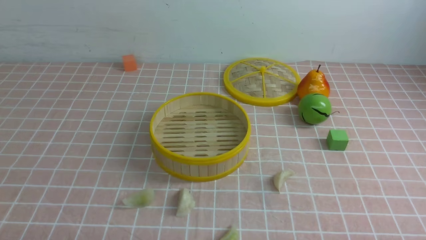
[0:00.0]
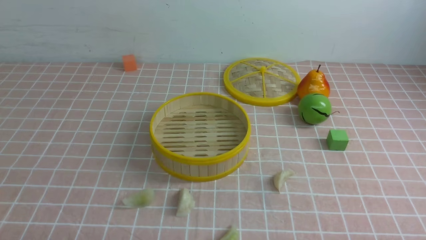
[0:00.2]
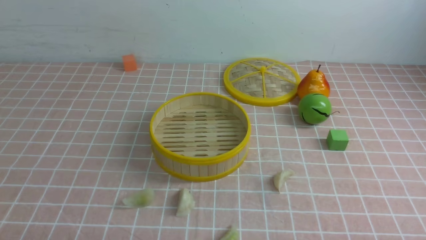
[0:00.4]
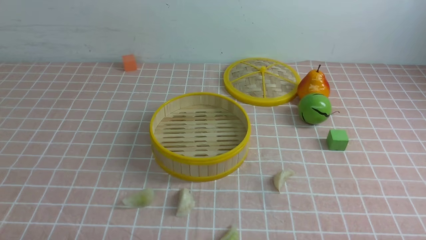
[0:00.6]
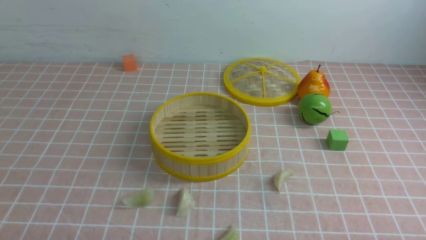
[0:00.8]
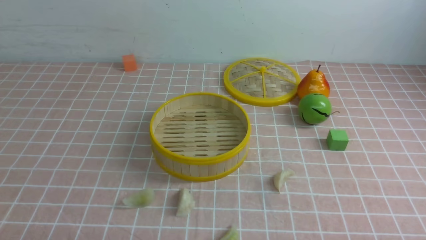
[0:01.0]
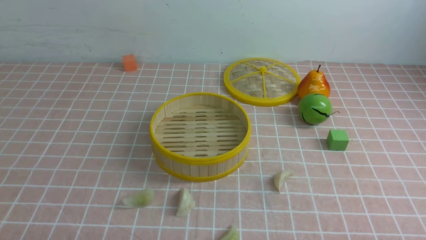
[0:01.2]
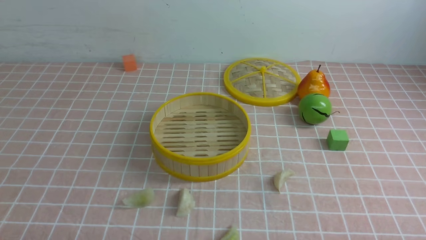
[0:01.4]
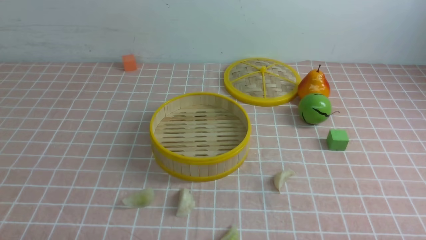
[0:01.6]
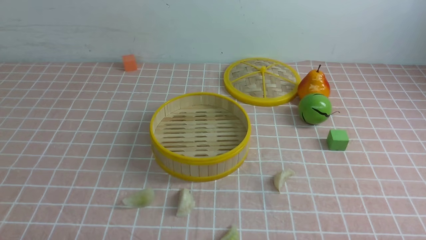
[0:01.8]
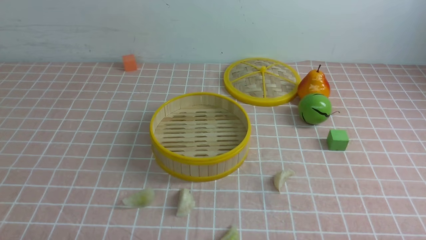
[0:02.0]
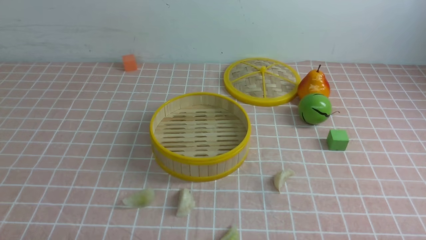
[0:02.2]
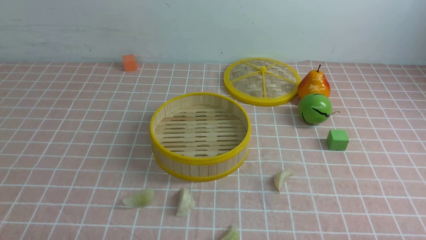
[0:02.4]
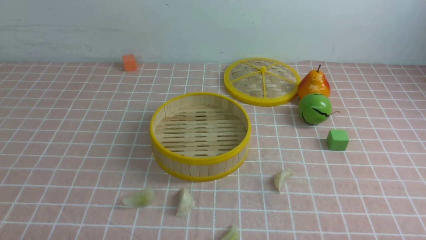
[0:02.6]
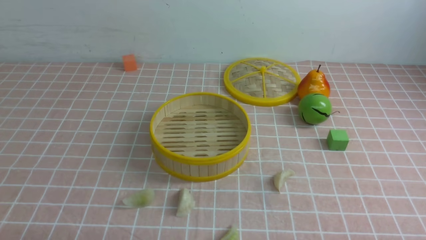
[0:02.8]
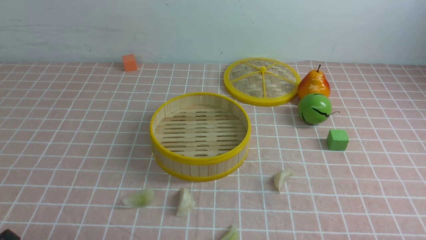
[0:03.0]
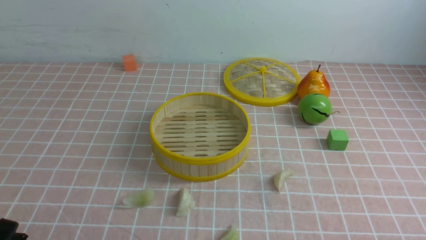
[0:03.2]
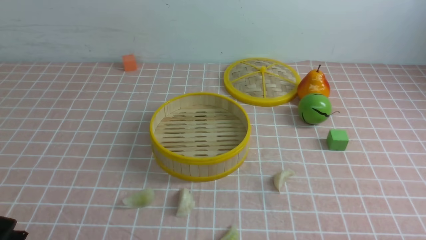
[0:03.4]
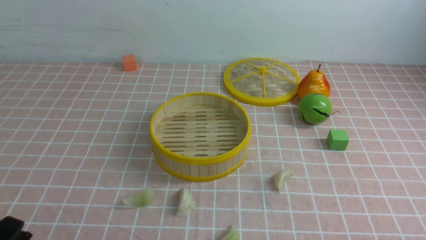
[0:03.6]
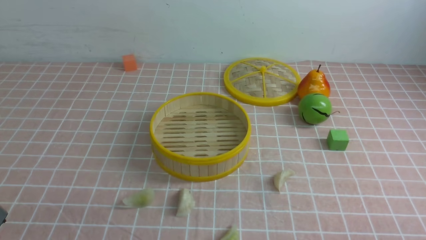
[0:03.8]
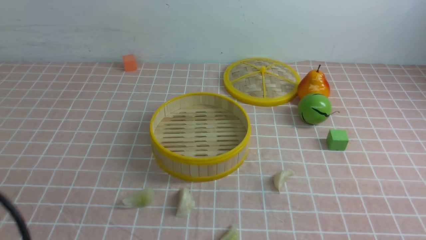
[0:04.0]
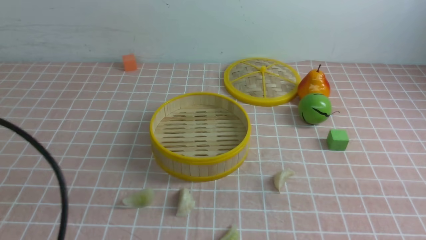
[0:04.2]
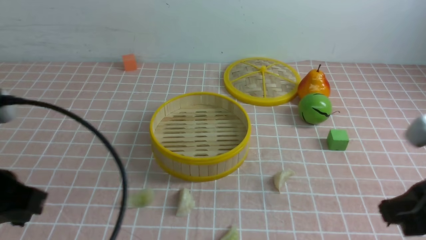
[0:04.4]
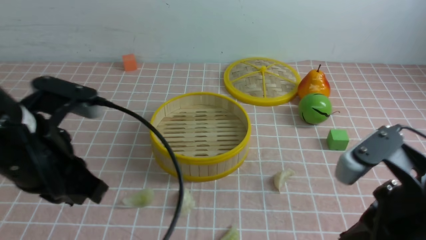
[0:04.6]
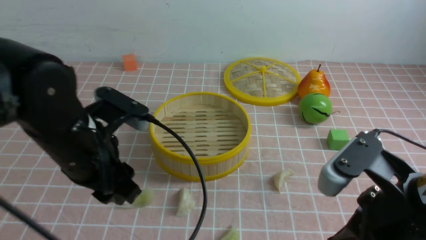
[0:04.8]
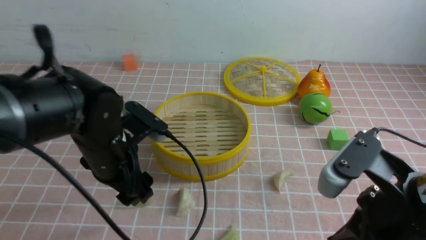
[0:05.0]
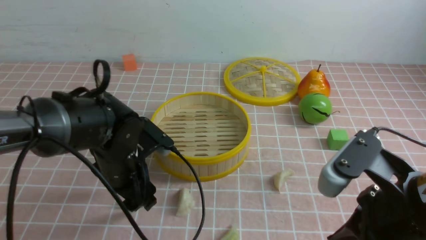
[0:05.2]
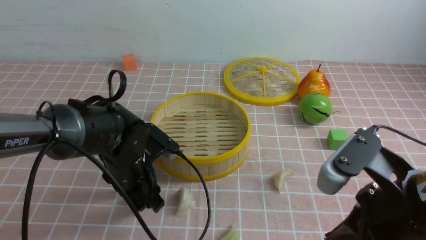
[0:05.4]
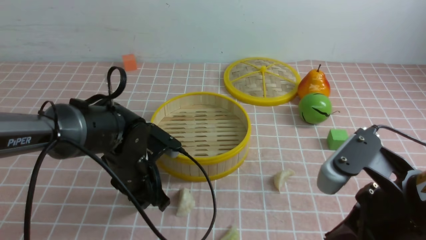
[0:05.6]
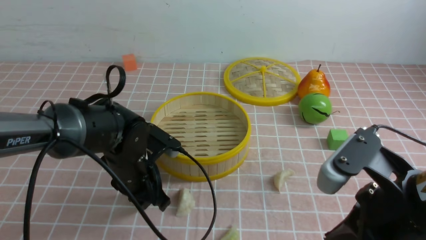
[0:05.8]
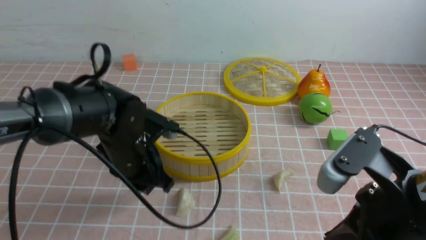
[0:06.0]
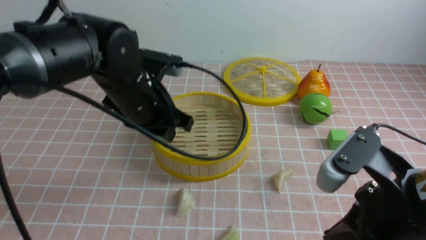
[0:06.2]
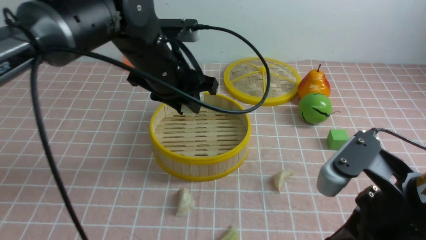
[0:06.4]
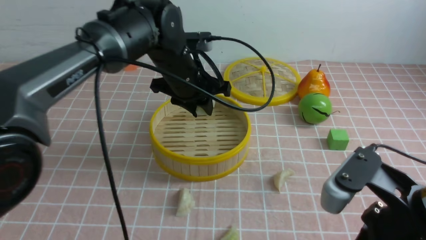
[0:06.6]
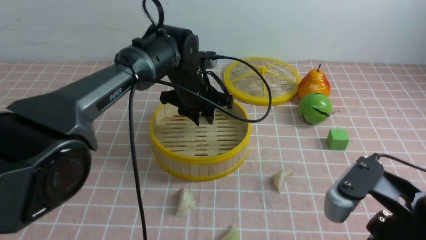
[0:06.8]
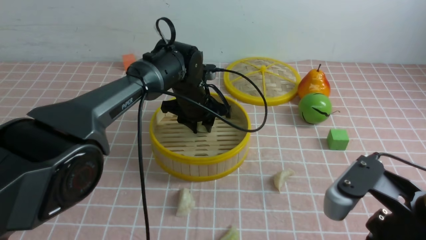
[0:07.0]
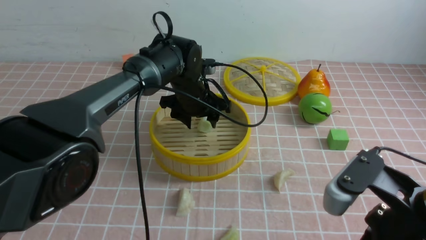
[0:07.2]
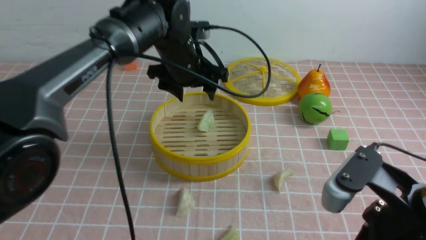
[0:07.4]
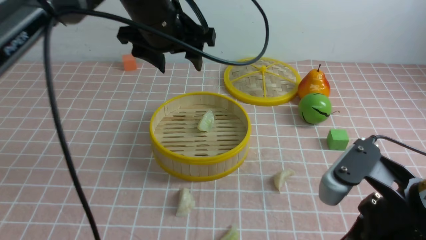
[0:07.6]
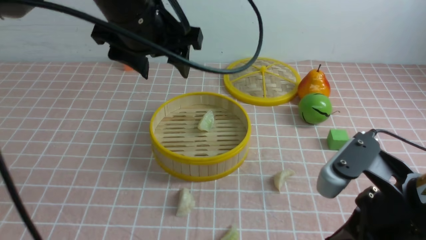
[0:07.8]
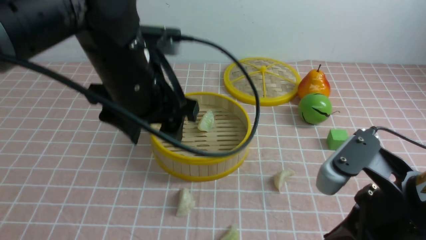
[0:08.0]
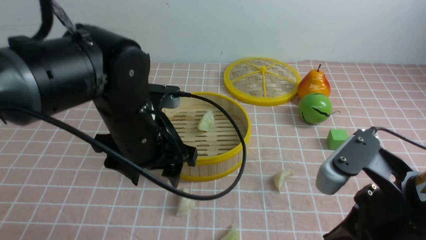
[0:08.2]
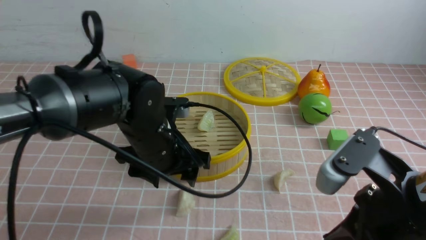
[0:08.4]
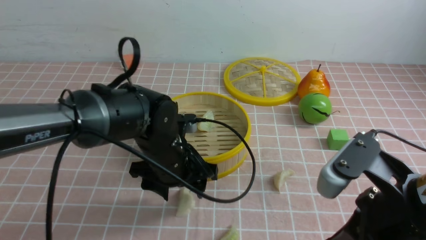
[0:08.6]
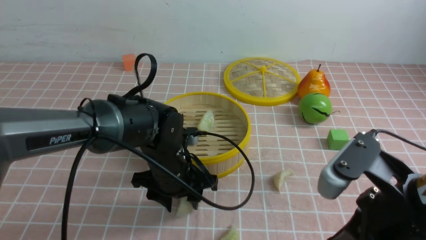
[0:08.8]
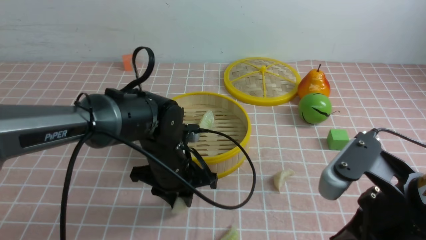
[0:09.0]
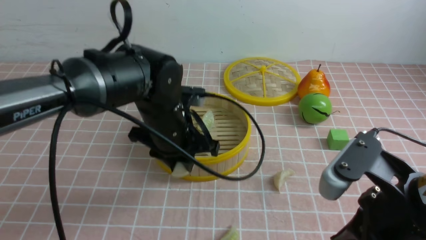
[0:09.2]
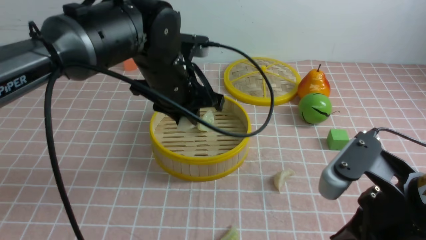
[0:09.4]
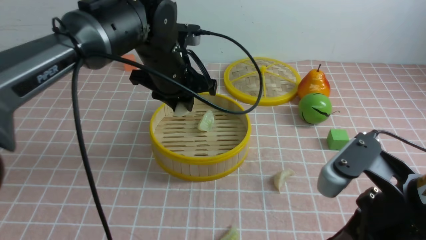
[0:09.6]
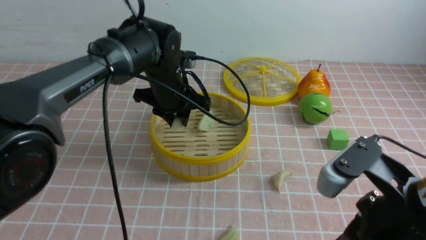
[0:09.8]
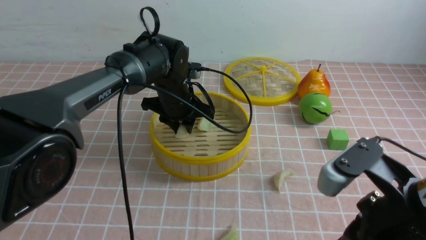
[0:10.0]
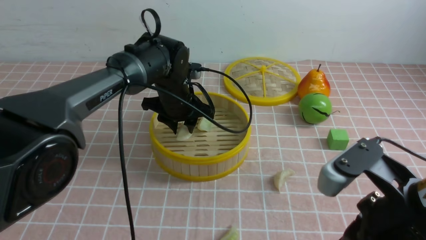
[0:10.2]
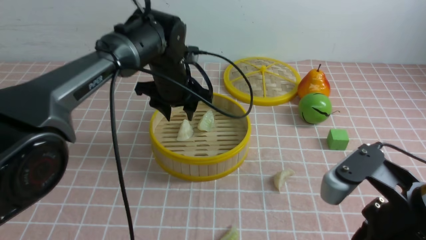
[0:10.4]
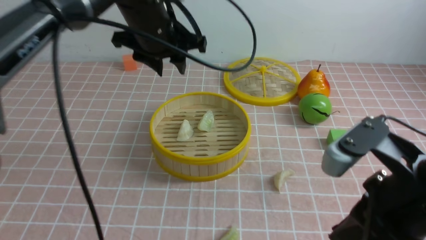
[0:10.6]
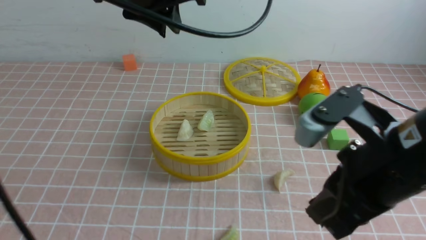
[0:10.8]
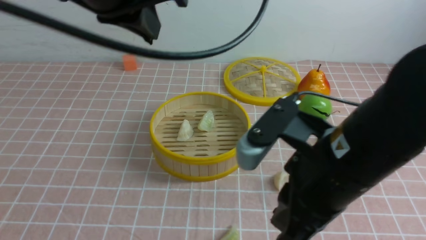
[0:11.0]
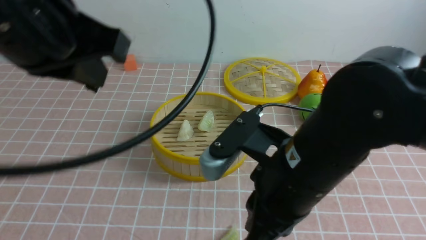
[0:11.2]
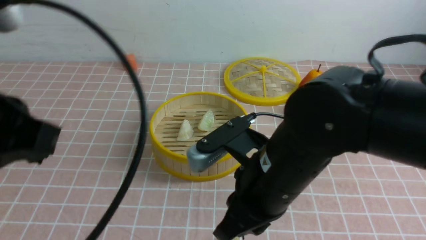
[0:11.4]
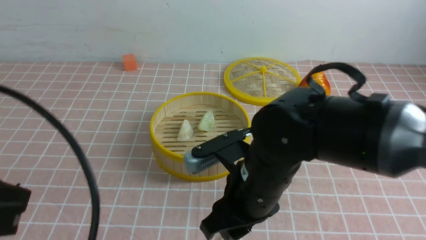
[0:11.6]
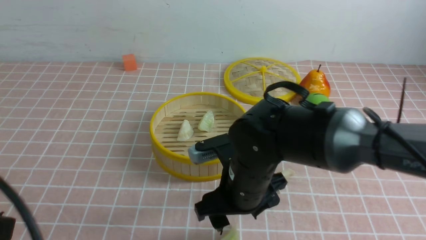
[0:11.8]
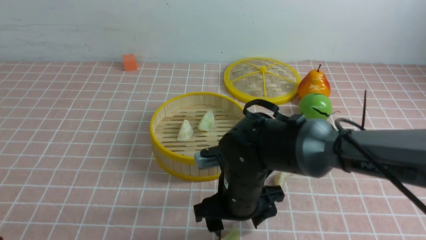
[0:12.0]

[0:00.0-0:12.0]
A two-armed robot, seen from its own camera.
Task of the whole recording: put the dumplings into the steamer on the table with the pink tablecloth.
Step, 0:00.0 to 0:05.8: use the left arm to grab a dumpling.
Step, 0:06.0 to 0:07.4: use the left arm to put the dumpling into the steamer.
Step, 0:07.6 to 0:08.8: use the left arm to grab a dumpling.
Step, 0:09.0 to 0:10.4: use the left arm to put the dumpling into the steamer.
0:03.0 to 0:04.4: Both grippers travel together upward and forward, about 15 cm. The right gripper closes its fingers; the left gripper closes up.
0:04.4 to 0:06.0: The right gripper travels to the left by approximately 10 cm; the left gripper travels forward, downward and to the right by approximately 25 cm, and opens.
0:06.0 to 0:07.6: The left gripper swings up and down, some 15 cm each way, with 2 reversals, and opens up.
0:07.6 to 0:09.0: The left gripper heads downward and backward, covering some 20 cm, and closes.
0:09.0 to 0:10.4: The left gripper heads forward and upward, covering about 15 cm.
0:10.4 to 0:12.0: The left gripper is displaced backward and to the left by some 40 cm, and closes up. Meanwhile the right gripper heads to the left, forward and downward, covering about 20 cm, and opens.

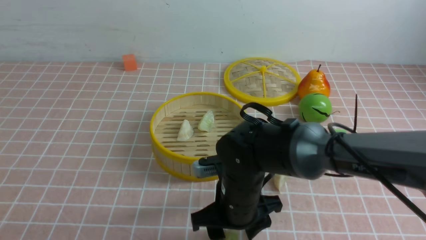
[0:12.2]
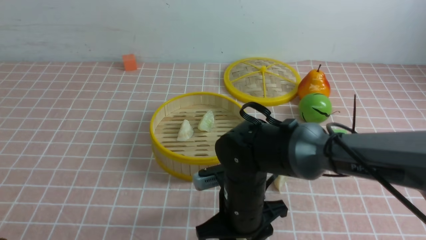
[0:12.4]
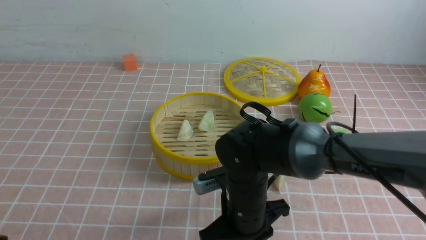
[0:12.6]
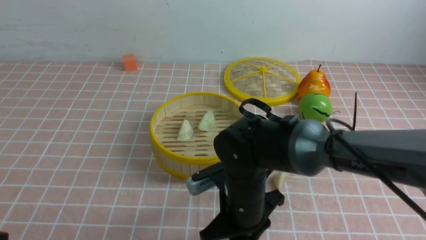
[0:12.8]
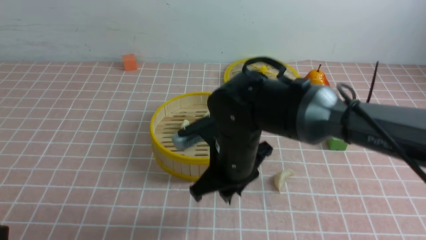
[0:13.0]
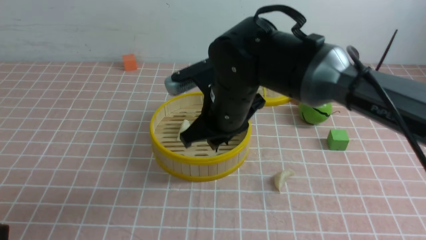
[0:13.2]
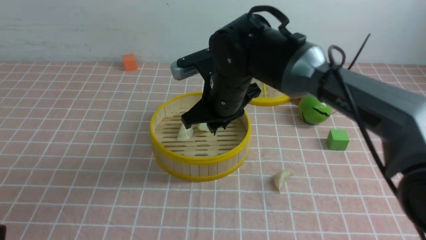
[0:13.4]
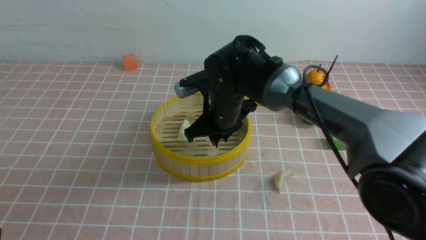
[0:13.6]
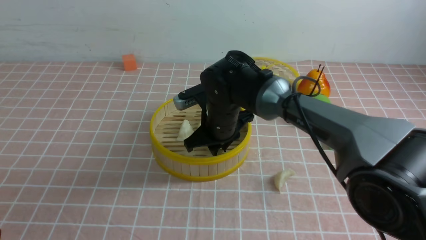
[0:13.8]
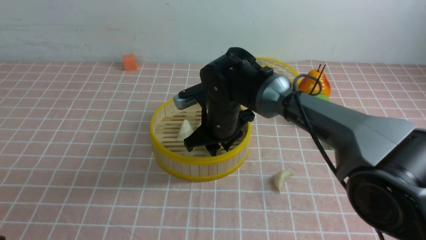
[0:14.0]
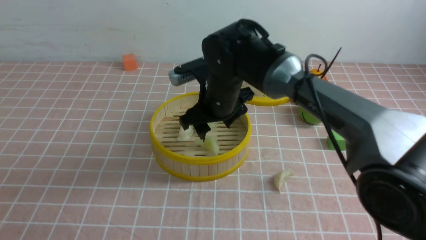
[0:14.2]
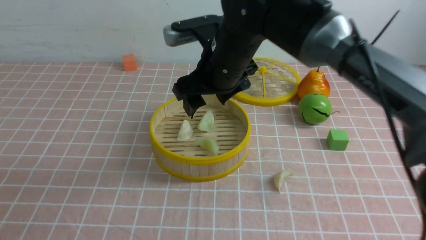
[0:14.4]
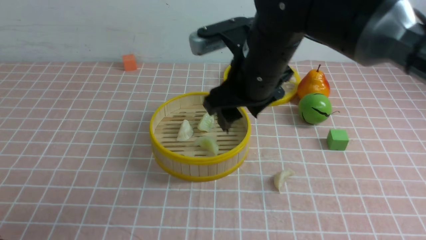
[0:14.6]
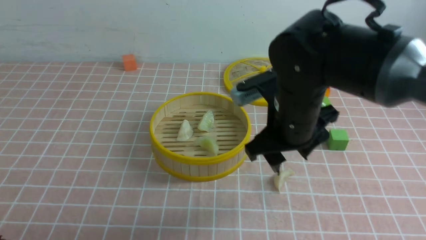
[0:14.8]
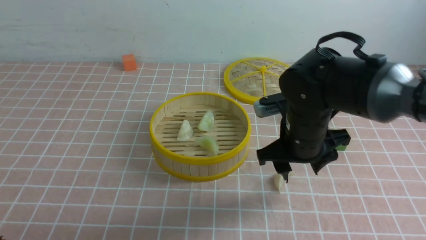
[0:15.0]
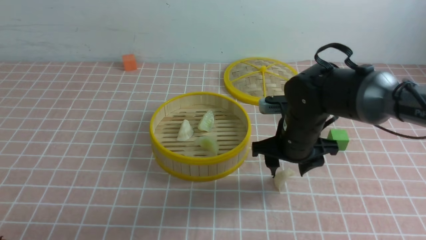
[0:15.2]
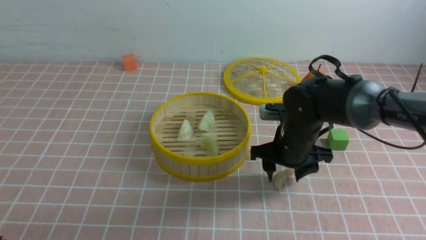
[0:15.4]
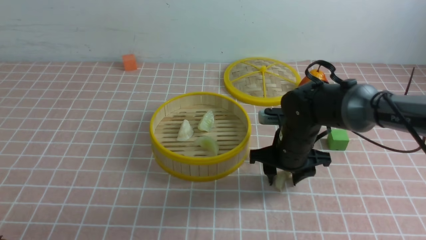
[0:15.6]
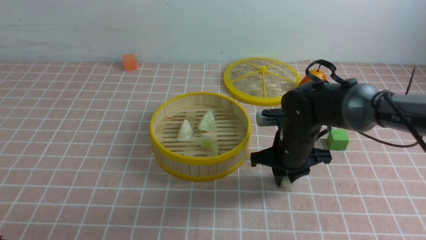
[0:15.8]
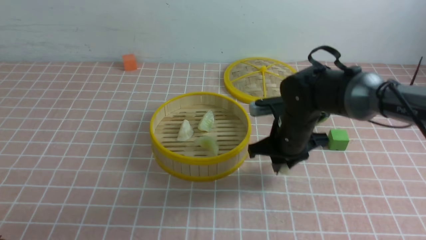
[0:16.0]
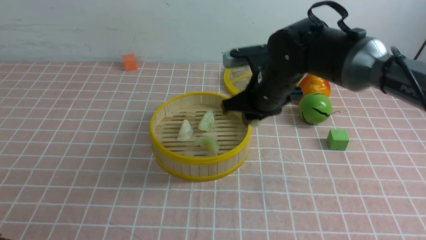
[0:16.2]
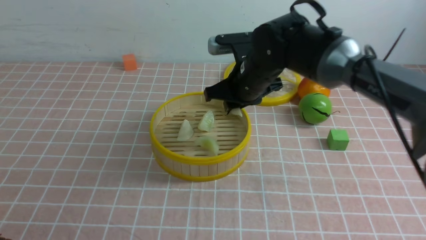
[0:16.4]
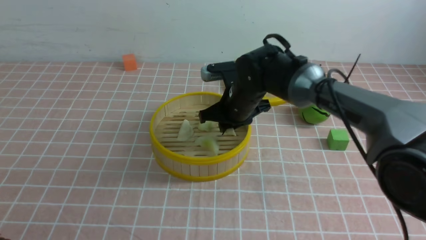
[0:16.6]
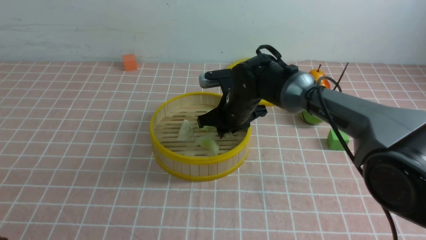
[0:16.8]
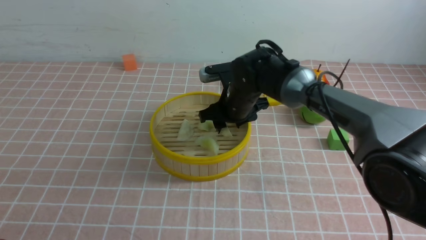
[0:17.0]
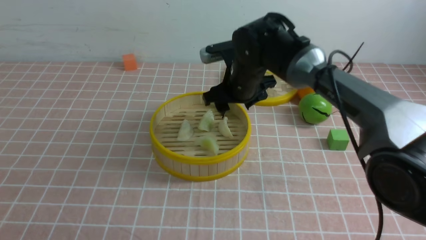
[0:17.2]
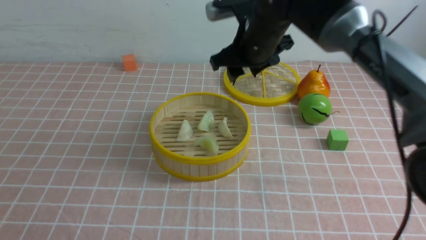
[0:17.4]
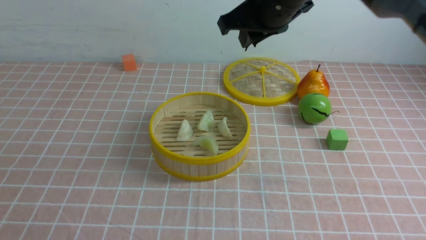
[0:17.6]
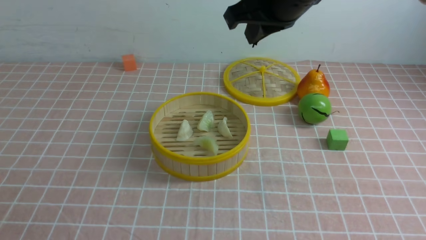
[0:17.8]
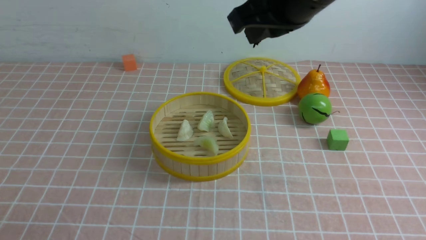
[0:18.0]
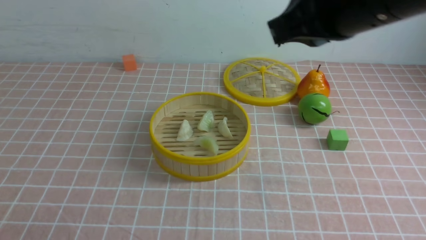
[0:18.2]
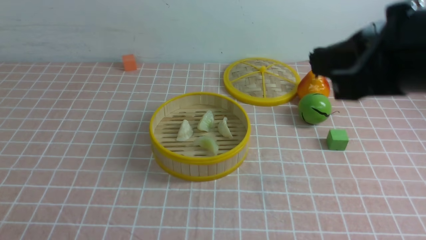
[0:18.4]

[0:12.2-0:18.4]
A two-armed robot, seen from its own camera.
Task of the whole recording: put the dumplings into the steamer on the table with the pink tablecloth.
Step, 0:13.0 to 0:14.2: use the right arm to put the dumpling into the steamer.
Step, 0:14.4 to 0:15.8: use the right arm to grab a dumpling.
Step, 0:16.2 to 0:17.0: use the right arm to put the dumpling into the steamer.
0:12.2 to 0:13.8: The right gripper moves forward, roughly 15 cm, and closes.
0:13.8 to 0:15.4: The right gripper is displaced to the right by approximately 10 cm, reaches roughly 10 cm upward, then returns, and opens its fingers.
0:15.4 to 0:16.8: The right gripper is displaced forward and to the left by approximately 10 cm, goes upward and returns, roughly 5 cm each way, and closes its fingers.
0:16.8 to 0:18.4: The left gripper changes place by roughly 5 cm, while the right gripper heads backward, upward and to the right, covering roughly 35 cm, and closes up.
